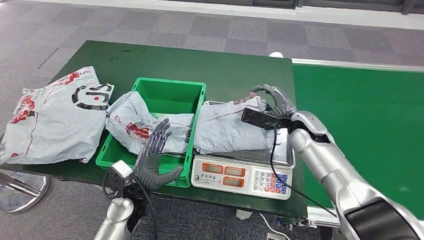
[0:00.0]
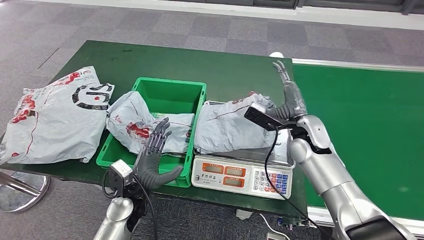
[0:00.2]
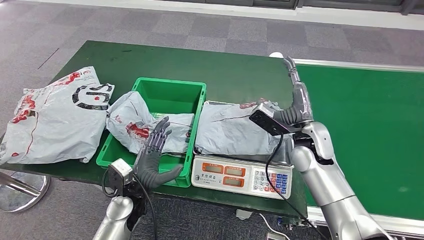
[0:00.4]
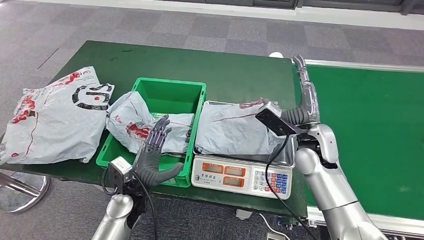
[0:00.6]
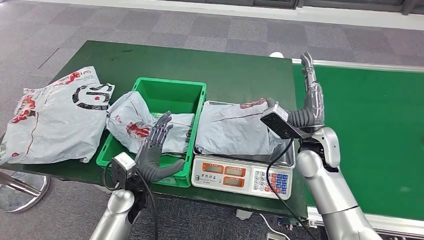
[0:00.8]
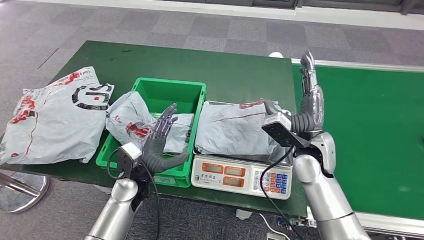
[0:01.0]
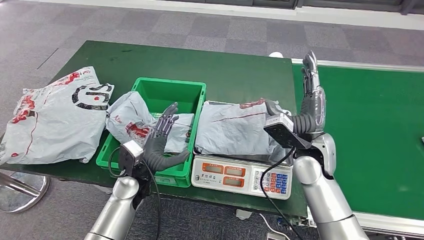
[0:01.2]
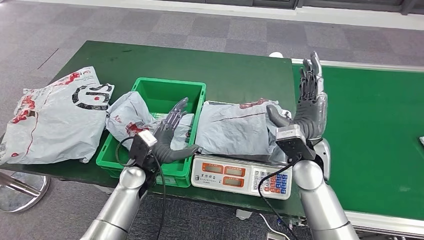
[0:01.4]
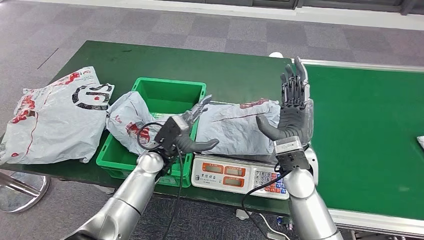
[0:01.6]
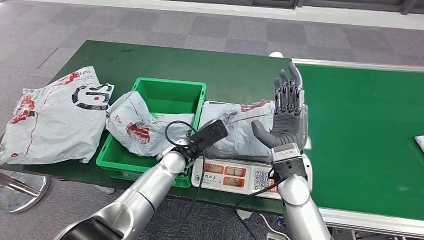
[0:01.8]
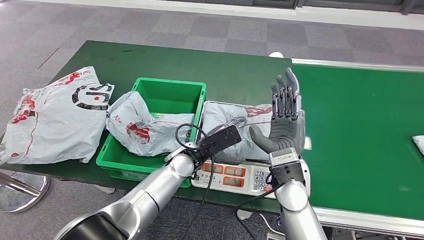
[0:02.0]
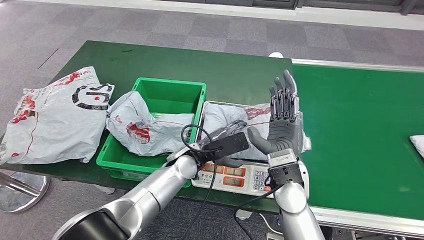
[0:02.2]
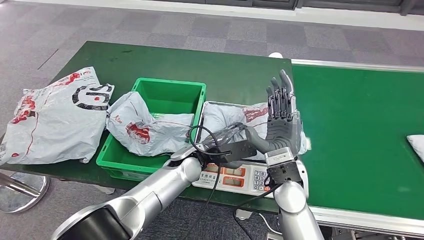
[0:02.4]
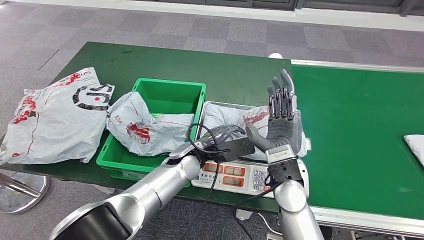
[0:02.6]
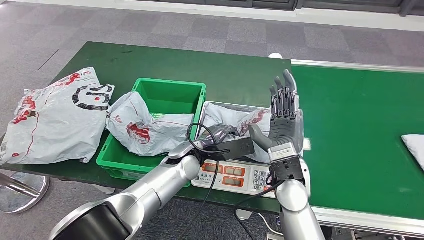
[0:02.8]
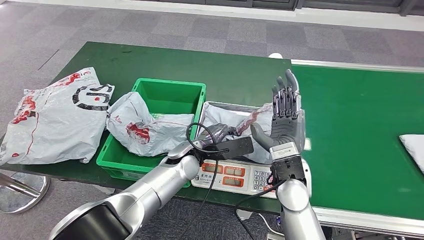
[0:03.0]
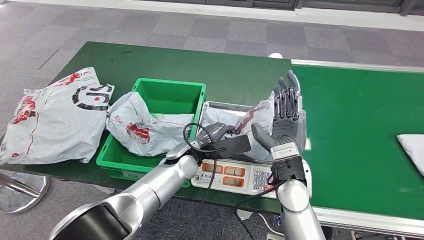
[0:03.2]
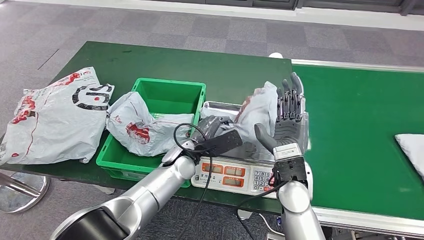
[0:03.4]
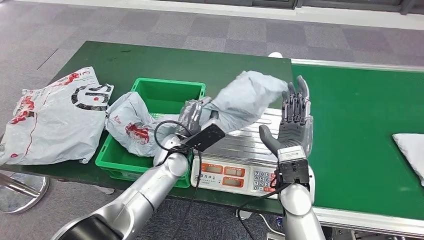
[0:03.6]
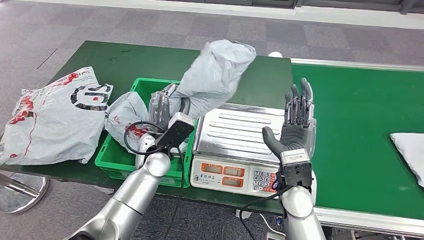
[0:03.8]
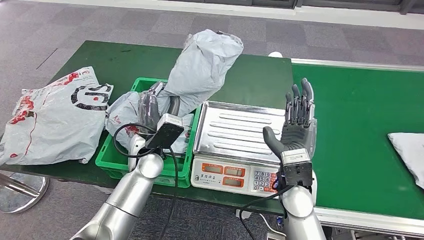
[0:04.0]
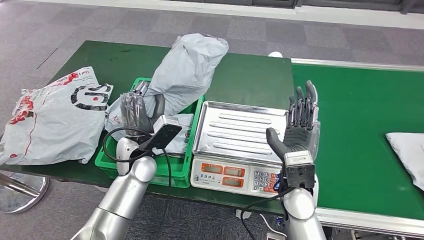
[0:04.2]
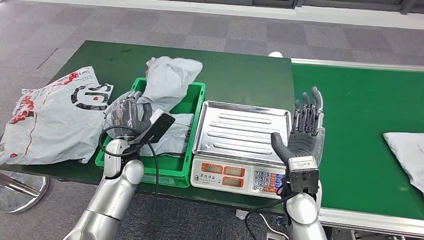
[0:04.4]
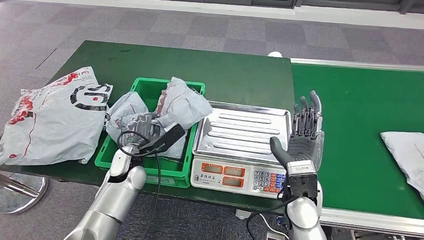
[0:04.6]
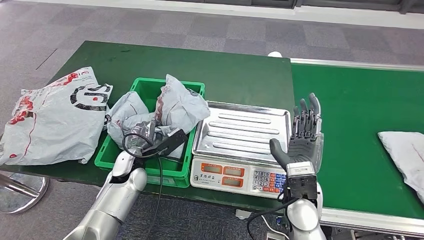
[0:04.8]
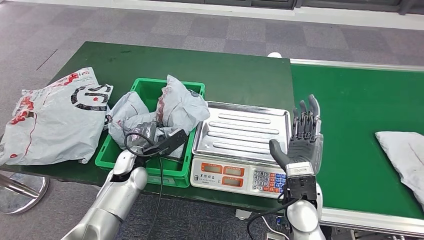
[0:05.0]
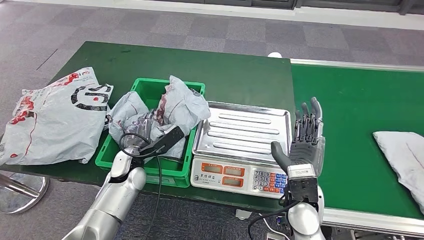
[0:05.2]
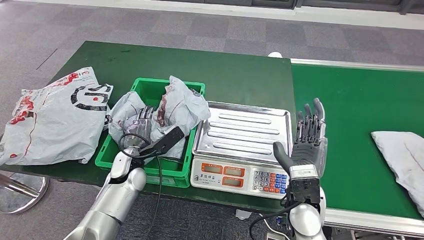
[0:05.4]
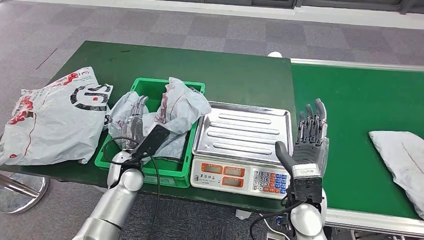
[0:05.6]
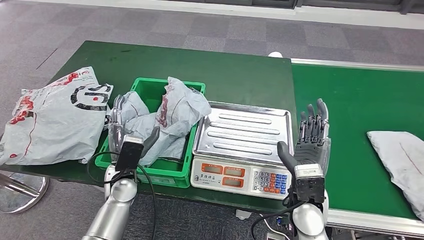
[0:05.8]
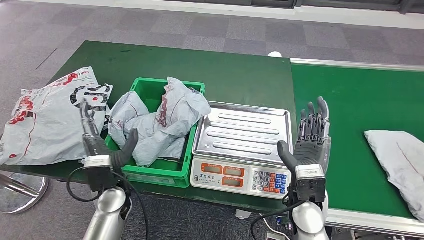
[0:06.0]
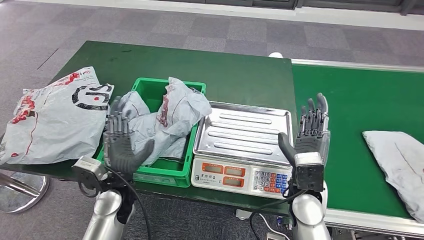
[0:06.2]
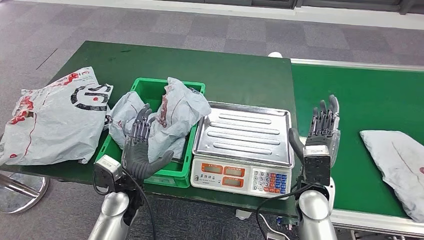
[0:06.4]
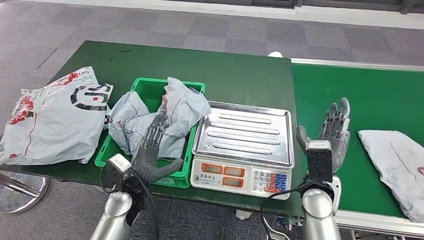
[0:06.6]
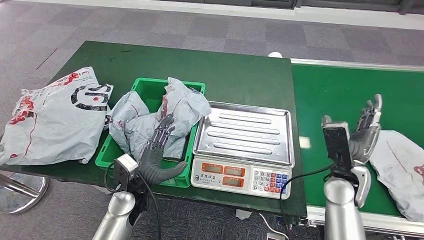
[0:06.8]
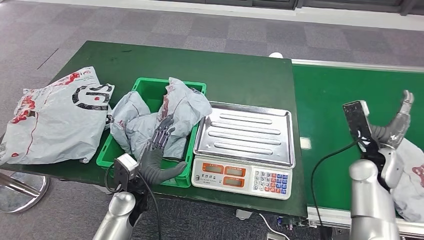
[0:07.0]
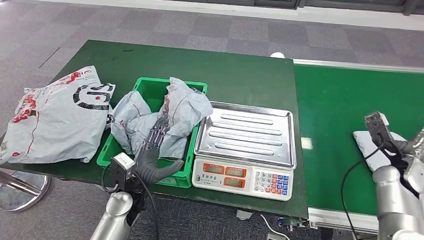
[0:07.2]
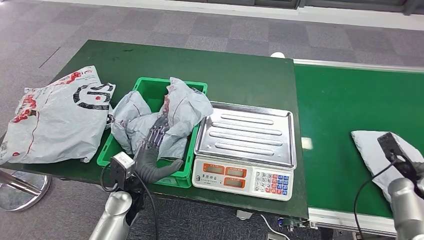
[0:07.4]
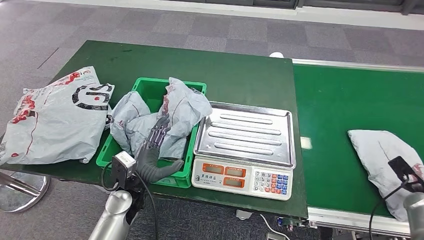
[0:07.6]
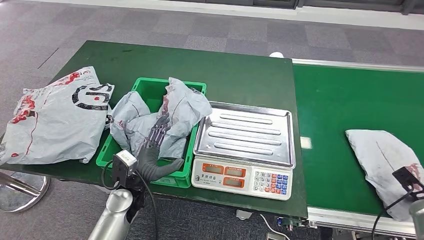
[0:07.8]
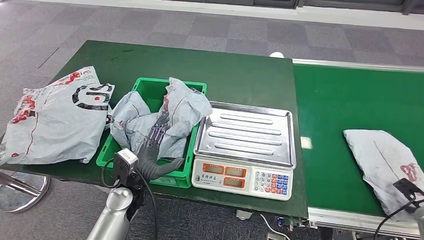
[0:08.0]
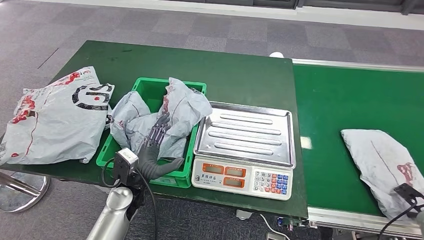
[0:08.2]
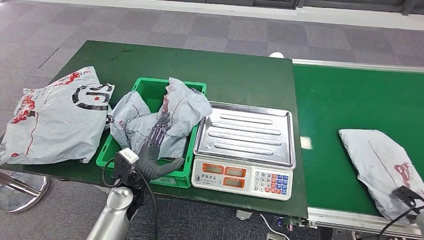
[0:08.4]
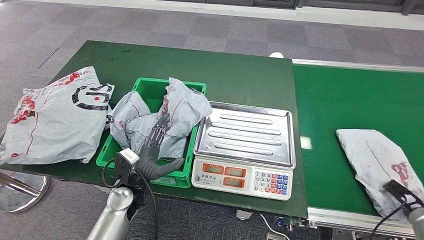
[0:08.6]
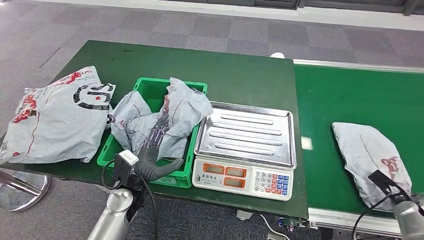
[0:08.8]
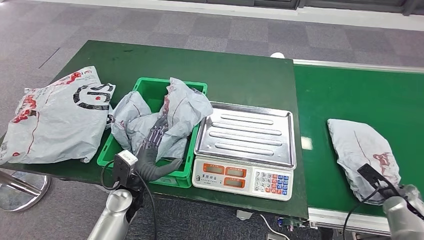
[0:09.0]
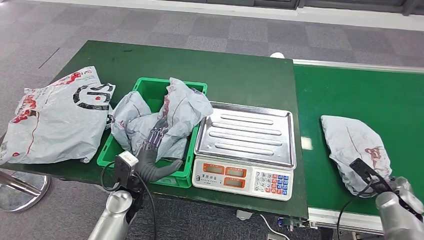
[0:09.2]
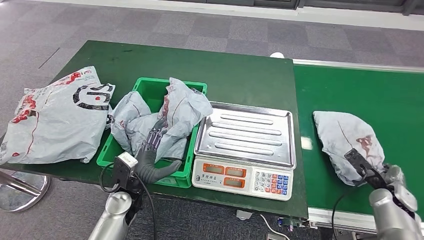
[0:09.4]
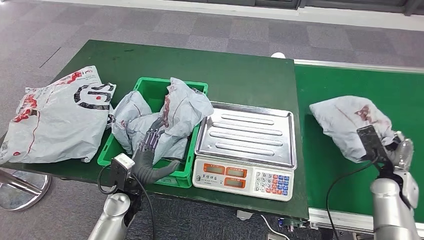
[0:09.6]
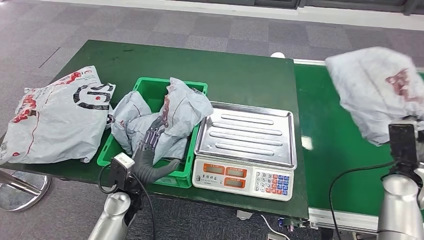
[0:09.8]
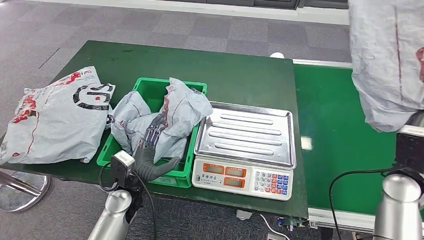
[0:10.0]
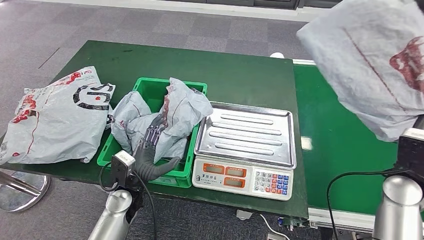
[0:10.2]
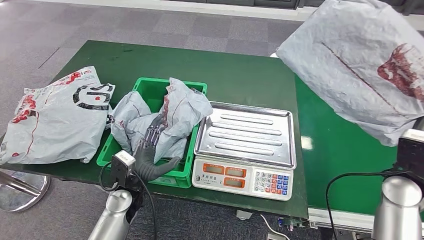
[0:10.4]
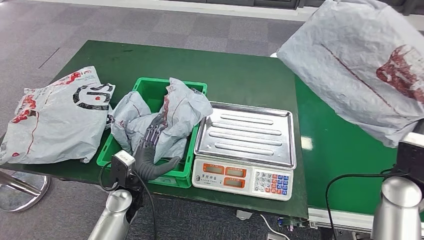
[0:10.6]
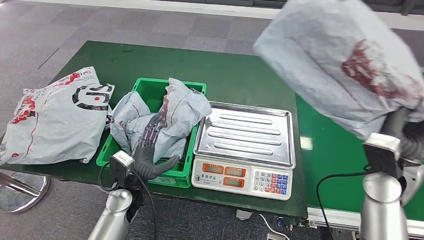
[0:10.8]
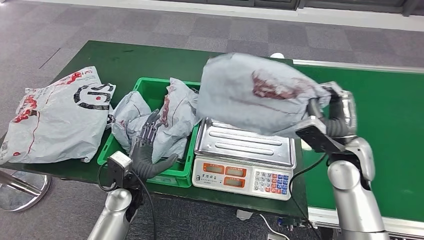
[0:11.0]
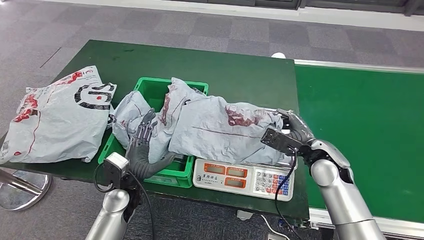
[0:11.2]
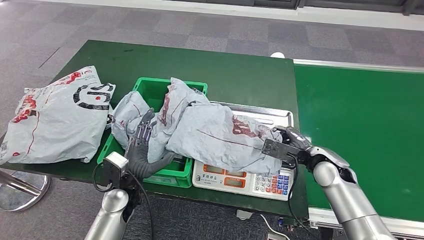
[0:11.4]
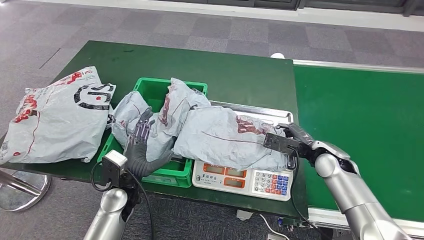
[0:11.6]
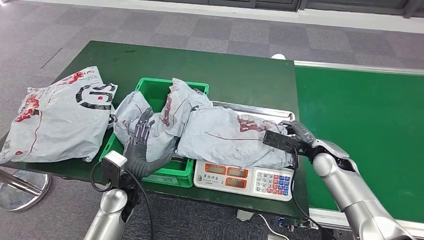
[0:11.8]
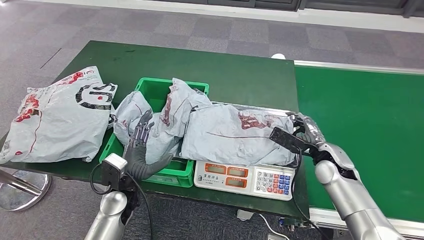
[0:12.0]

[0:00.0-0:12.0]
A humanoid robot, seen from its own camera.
Step, 0:00.6 to 0:03.8: Pick up the parcel from the inbound machine.
Step, 0:04.0 to 0:06.2: Place the parcel into the delivery box.
Step, 0:06.4 to 0:10.6: Pick up the parcel from the conveyor belt.
0:04.4 to 0:06.0: The left hand goes approximately 5 cm backward.

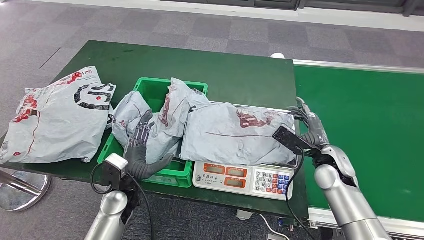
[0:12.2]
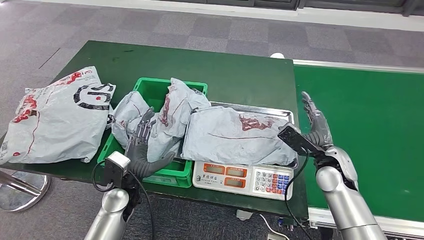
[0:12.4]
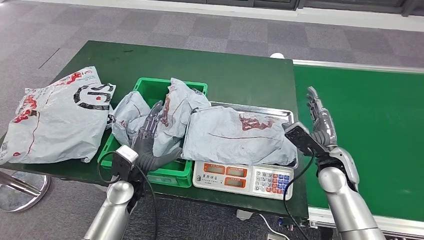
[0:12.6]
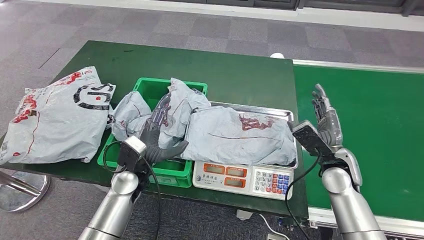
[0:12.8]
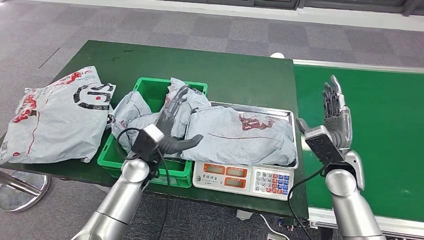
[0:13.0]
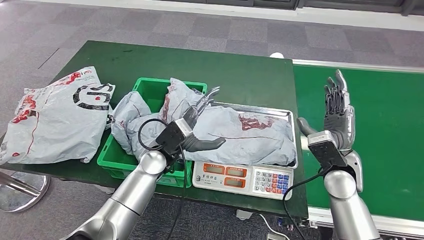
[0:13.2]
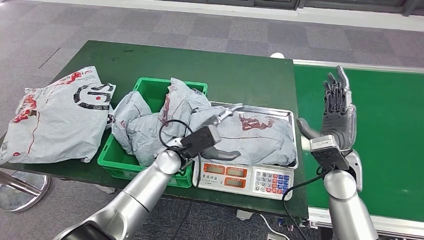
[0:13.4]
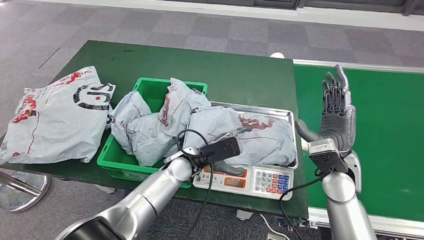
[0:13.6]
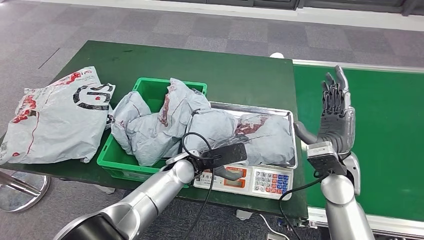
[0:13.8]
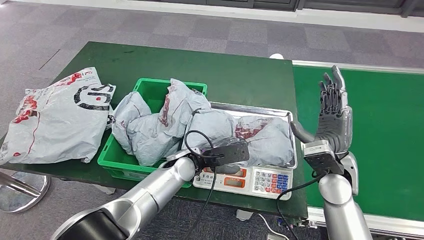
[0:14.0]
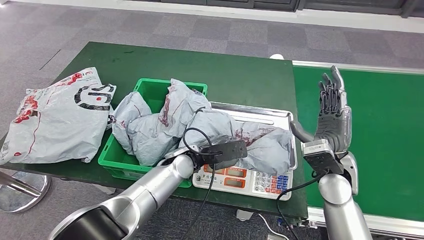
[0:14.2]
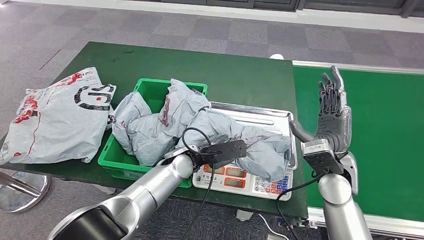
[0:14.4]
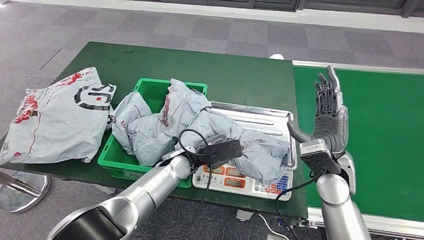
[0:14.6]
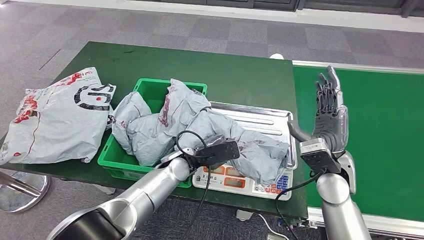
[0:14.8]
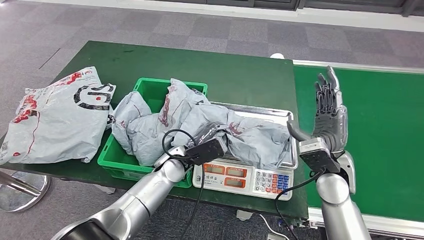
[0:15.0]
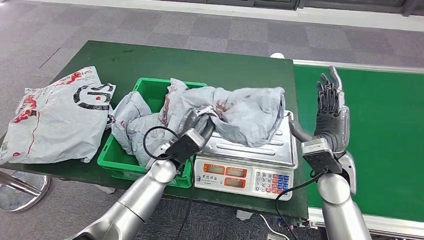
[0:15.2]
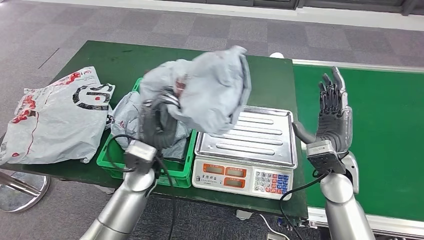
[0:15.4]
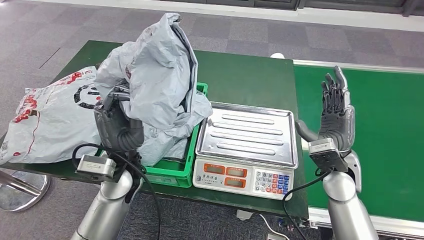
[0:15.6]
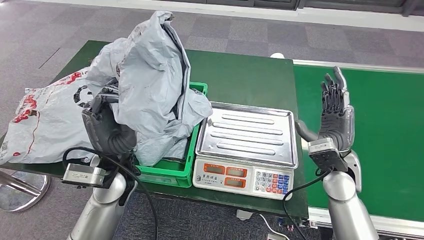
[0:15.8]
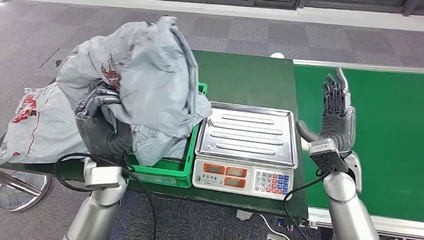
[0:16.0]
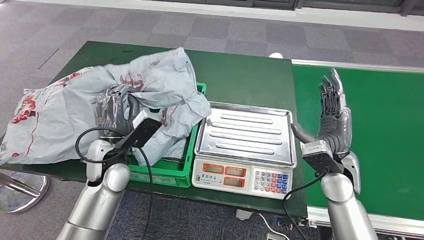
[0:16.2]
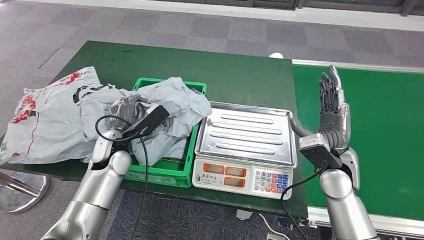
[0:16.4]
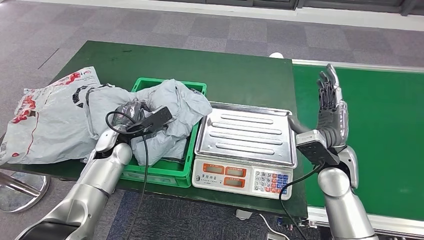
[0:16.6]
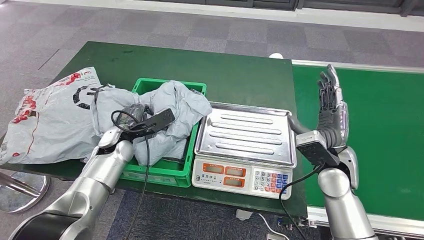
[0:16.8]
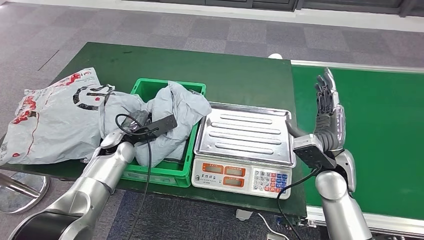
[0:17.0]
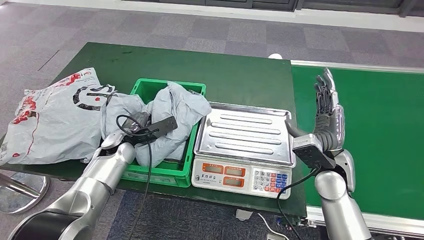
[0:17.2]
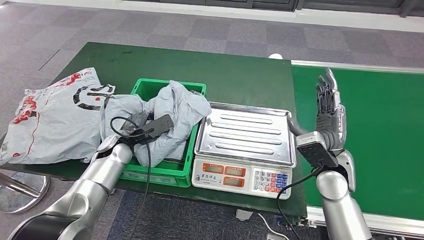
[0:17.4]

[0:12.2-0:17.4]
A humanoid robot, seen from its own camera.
Step, 0:13.2 to 0:15.2: Pick up the parcel from the inbound machine.
Step, 0:15.4 to 0:17.4: Place the parcel into the delivery box.
